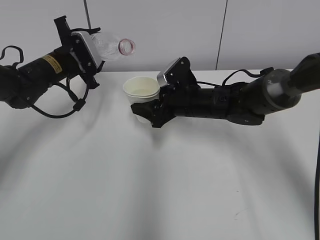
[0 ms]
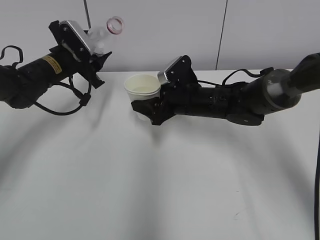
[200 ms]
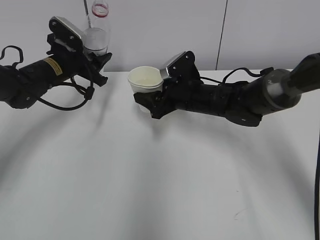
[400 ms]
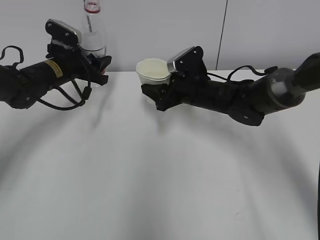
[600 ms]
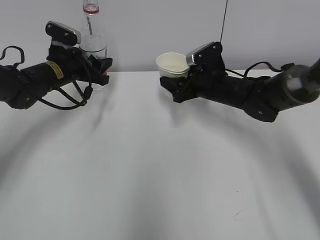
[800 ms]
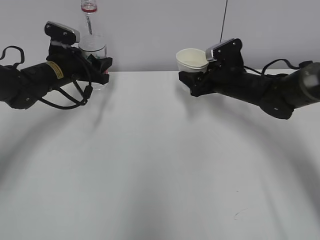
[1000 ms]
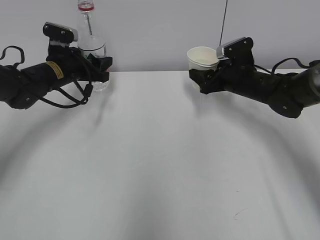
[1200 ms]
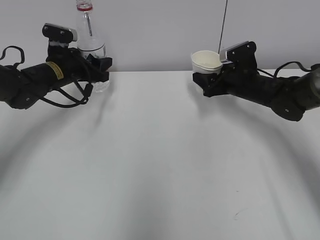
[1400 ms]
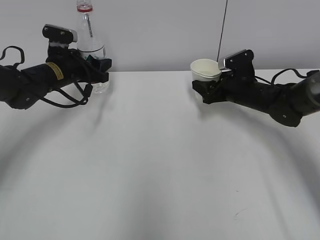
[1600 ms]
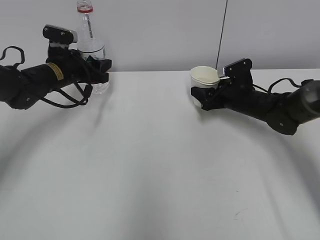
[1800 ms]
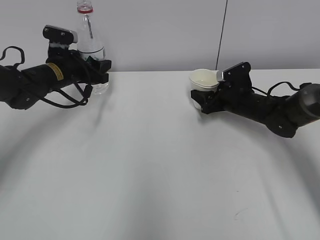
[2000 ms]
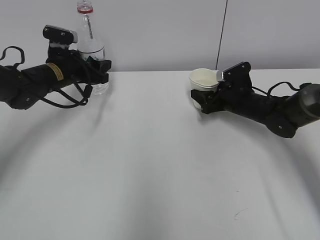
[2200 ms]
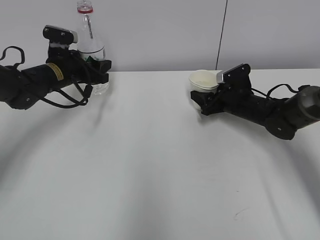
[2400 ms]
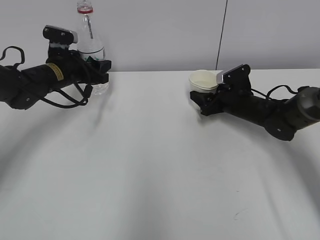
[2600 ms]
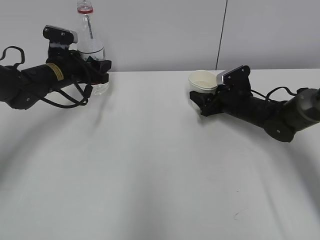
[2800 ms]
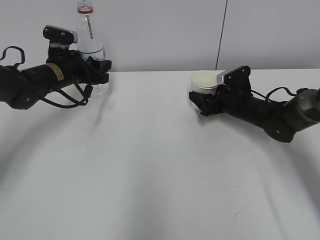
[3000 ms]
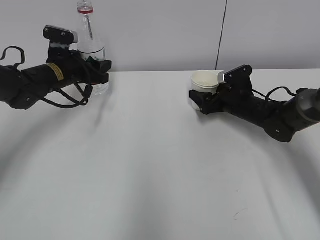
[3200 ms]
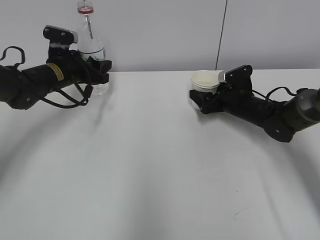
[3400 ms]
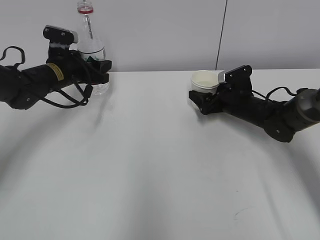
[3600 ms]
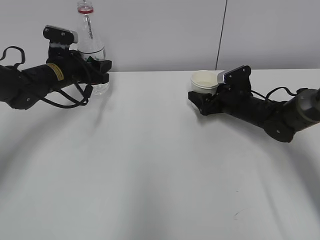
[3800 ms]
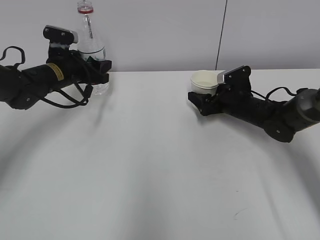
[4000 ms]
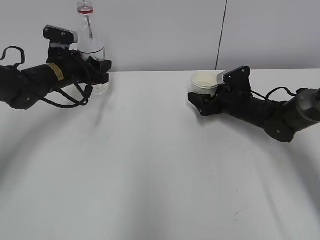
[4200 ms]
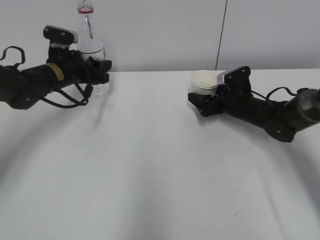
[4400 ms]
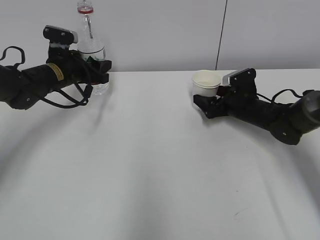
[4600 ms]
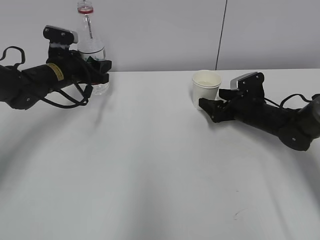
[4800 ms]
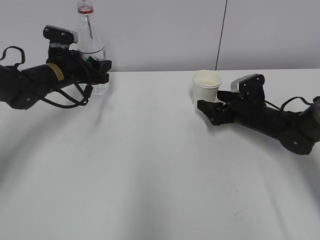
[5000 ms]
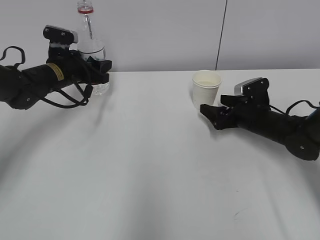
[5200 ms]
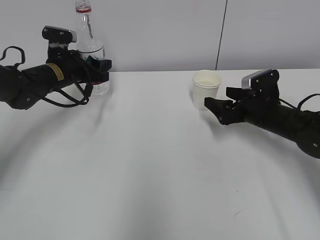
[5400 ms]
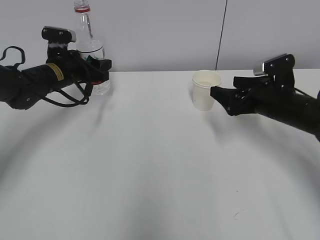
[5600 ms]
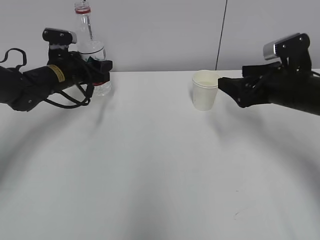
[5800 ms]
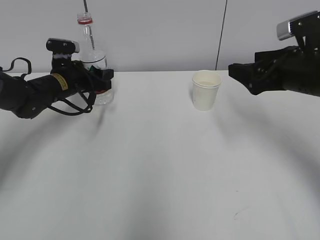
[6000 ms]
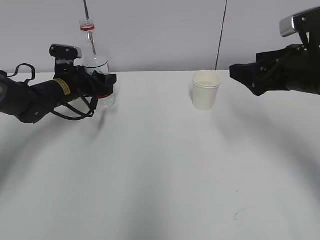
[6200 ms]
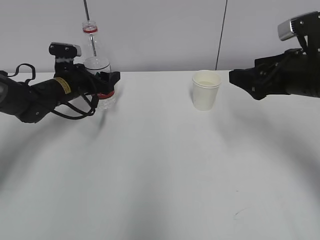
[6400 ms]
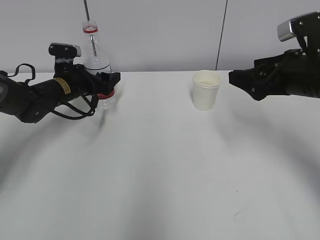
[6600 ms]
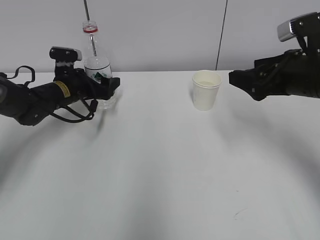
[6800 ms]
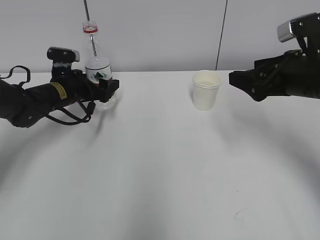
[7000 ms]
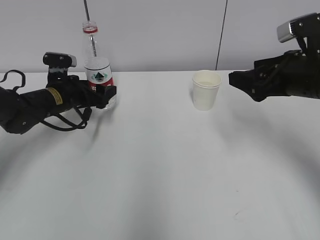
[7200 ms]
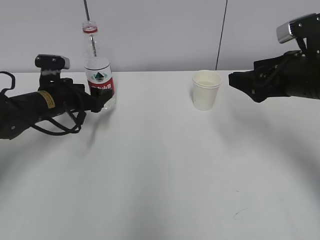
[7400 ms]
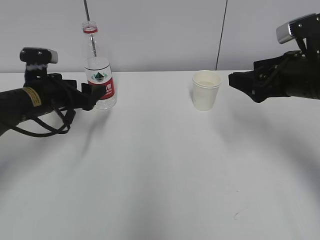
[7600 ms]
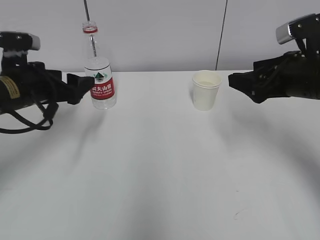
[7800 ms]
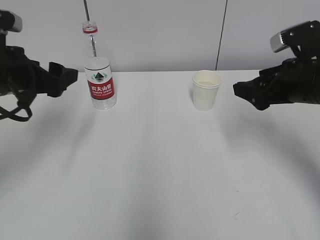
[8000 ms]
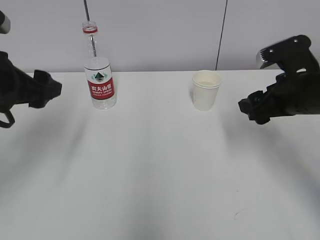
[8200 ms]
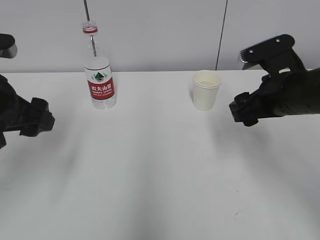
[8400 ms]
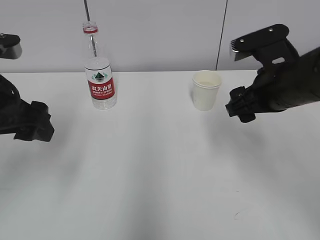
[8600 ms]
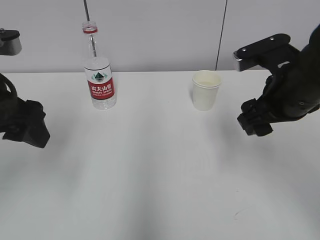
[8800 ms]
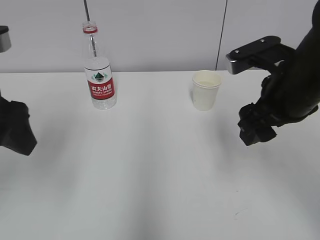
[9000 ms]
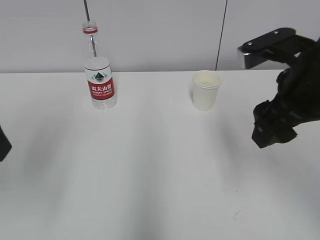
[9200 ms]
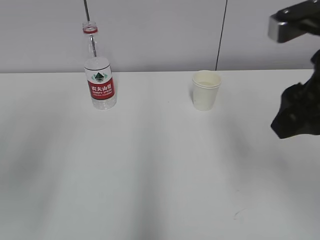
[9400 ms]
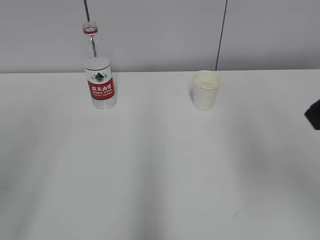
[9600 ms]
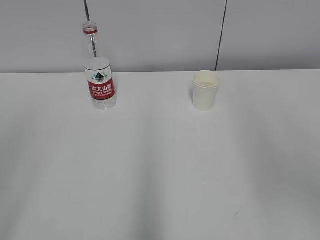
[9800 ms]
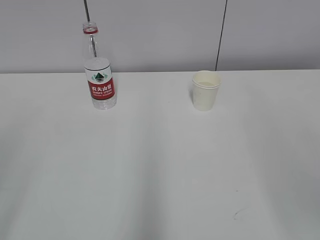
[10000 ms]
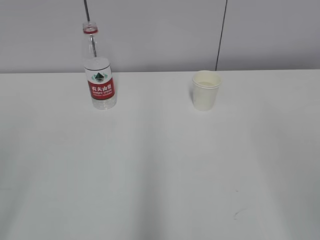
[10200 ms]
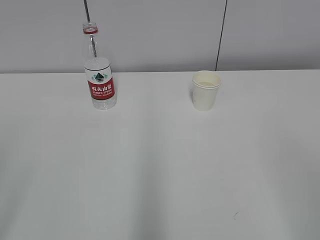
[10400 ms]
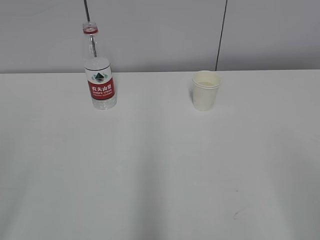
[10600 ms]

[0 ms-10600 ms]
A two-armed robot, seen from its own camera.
Step, 0 ms to 1200 ms: Place the paper cup with the right hand.
0 ms to 1600 ms: The right gripper heads to the right, covering approximately 15 cm.
1600 ms to 3000 ms: The right gripper opens up.
3000 ms to 4600 ms: The right gripper opens.
4600 ms to 6000 ms: The right gripper moves upward and backward, some 20 cm.
6000 ms to 7600 ms: The left gripper moves backward, about 10 cm, and opens its fingers.
7600 ms to 9000 ms: The right gripper moves to the left, approximately 5 cm. Meanwhile the left gripper goes about 20 cm backward and upward.
9000 ms to 10600 ms: The left gripper shifts about 25 cm backward and to the left; the right gripper shifts approximately 25 cm backward.
